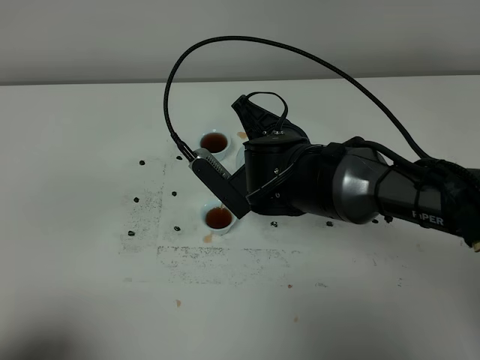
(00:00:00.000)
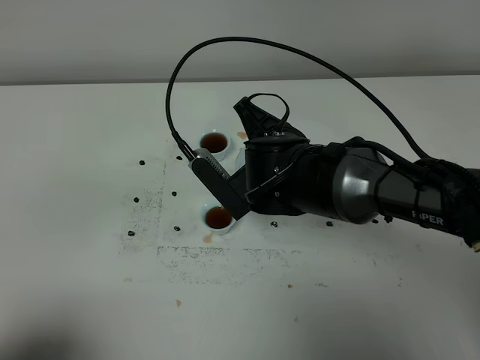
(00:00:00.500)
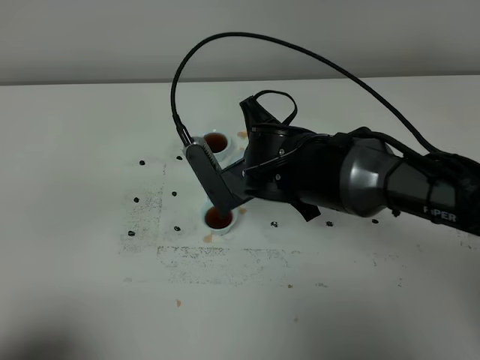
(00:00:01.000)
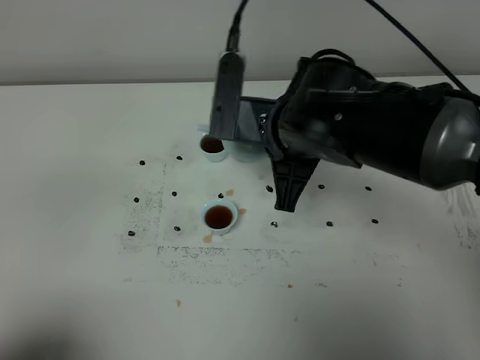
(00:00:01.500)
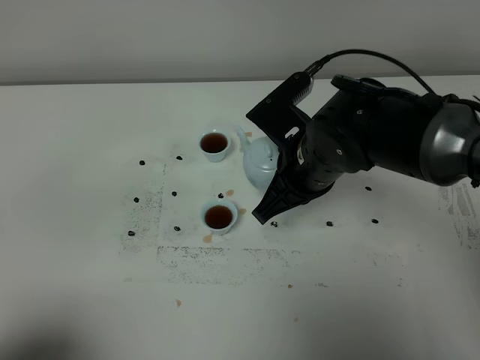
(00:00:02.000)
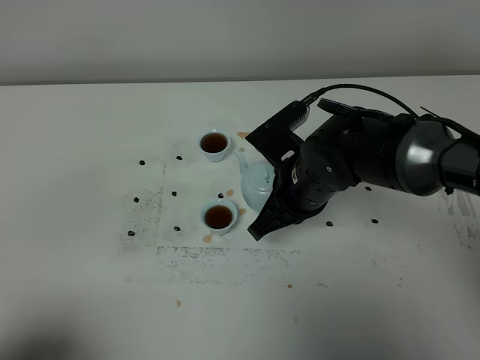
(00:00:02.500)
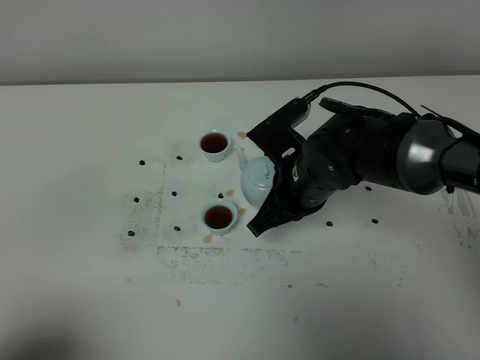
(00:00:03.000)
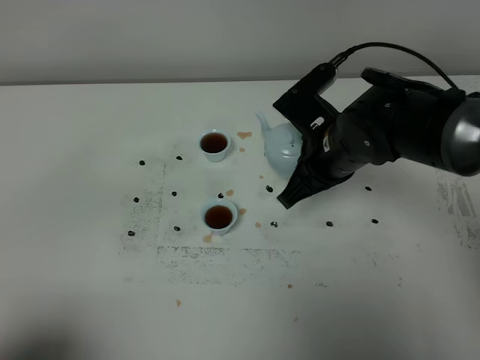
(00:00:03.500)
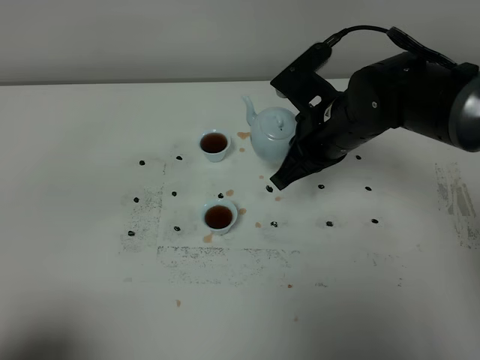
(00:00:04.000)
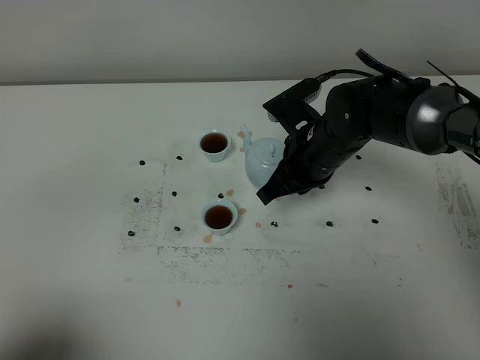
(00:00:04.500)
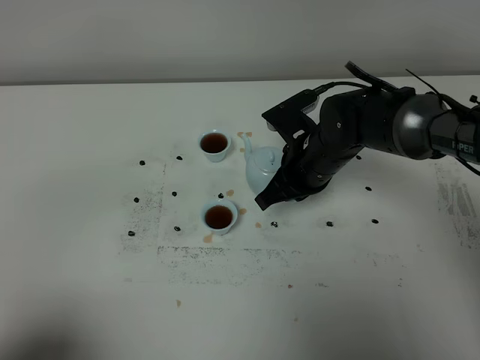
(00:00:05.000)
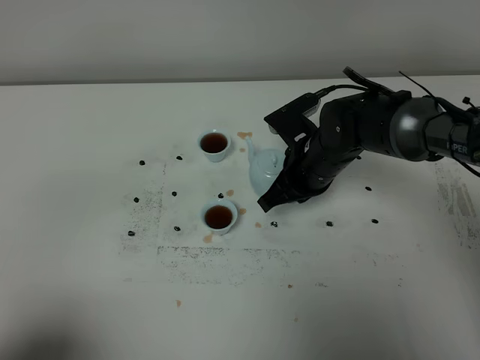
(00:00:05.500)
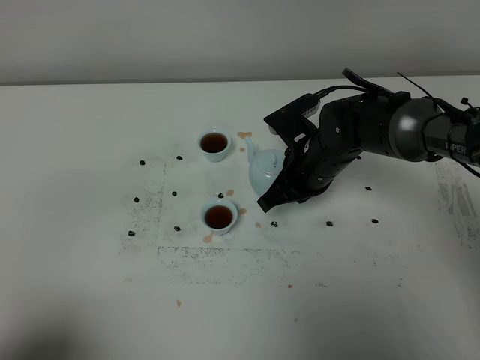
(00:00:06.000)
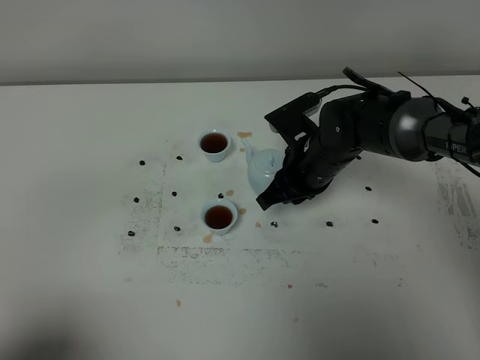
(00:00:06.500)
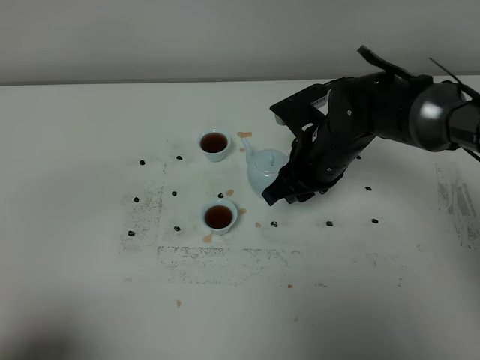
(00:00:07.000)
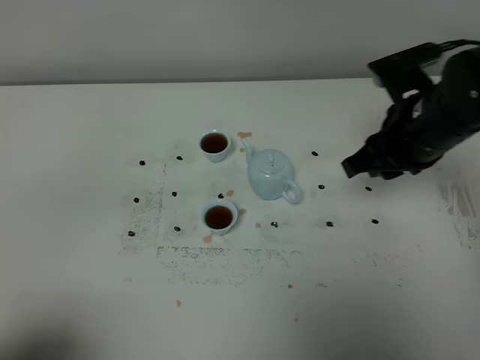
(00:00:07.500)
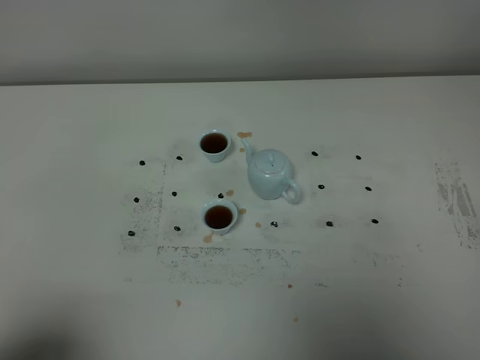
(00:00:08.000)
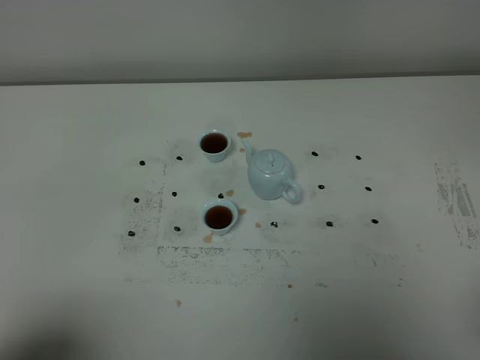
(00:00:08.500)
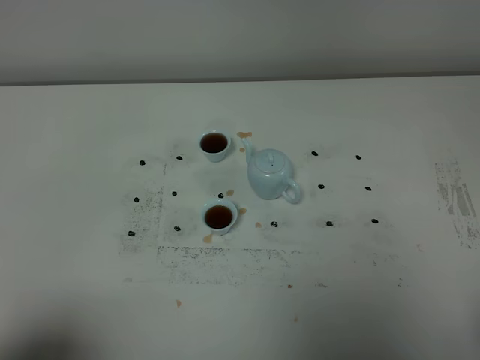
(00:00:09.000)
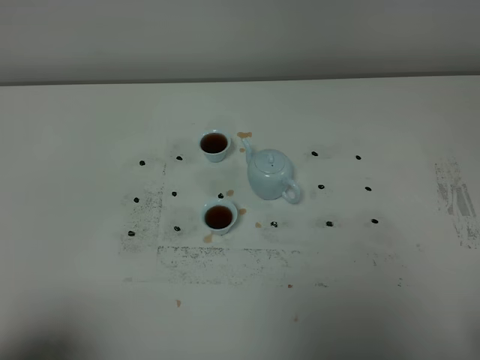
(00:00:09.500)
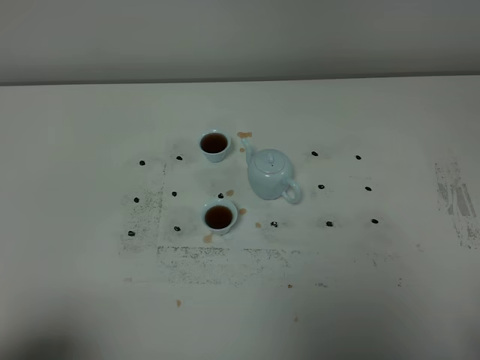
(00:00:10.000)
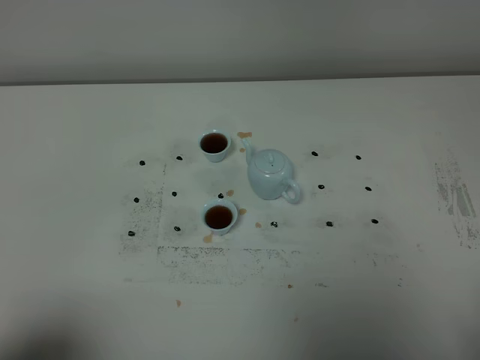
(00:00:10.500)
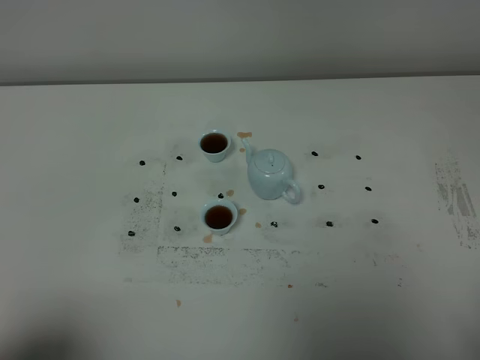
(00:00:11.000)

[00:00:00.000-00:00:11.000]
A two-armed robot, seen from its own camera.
Task of the whole recording: grasp the blue porcelain teapot and pour the tea into the two blue porcelain teacups one by one, put the blue porcelain teapot back in its original place.
00:00:02.000 to 00:00:03.500: The grippers move only a little.
00:00:03.500 to 00:00:05.500: The right gripper travels downward by roughly 5 cm.
00:00:05.500 to 00:00:07.500: The right gripper heads upward, to the right and backward, covering approximately 15 cm, and opens up.
00:00:07.500 to 00:00:09.000: The right gripper heads backward, covering about 30 cm.

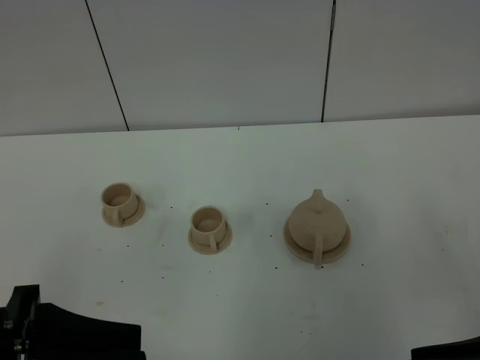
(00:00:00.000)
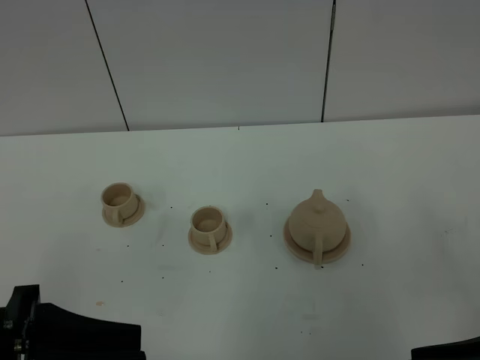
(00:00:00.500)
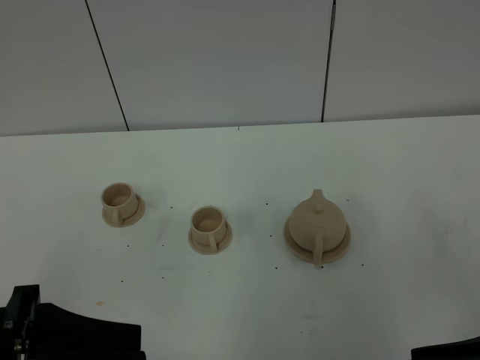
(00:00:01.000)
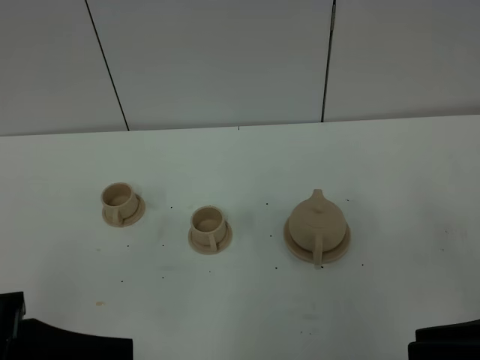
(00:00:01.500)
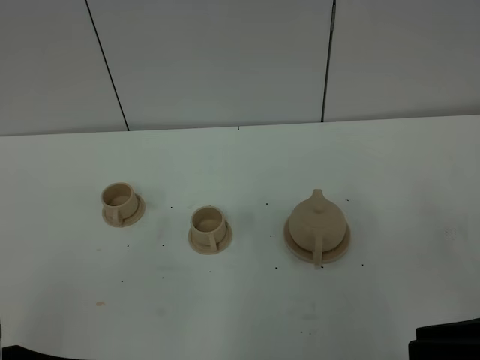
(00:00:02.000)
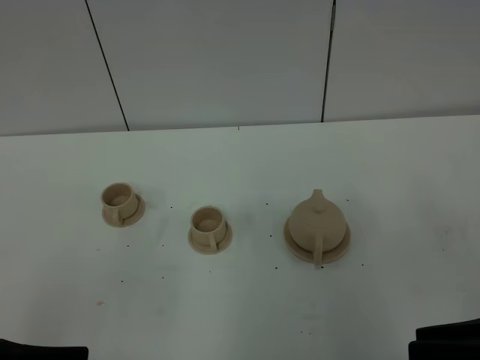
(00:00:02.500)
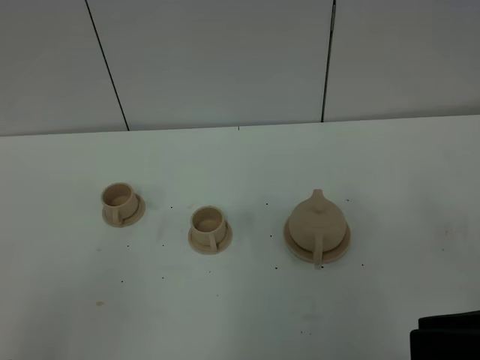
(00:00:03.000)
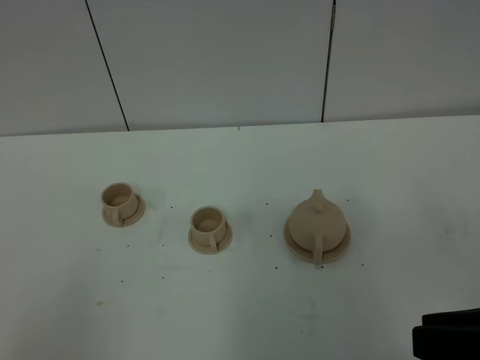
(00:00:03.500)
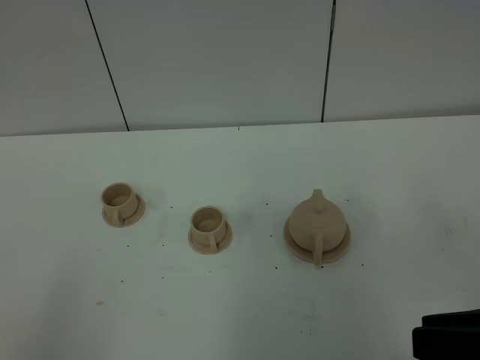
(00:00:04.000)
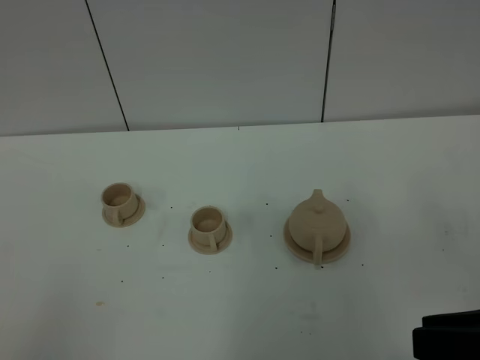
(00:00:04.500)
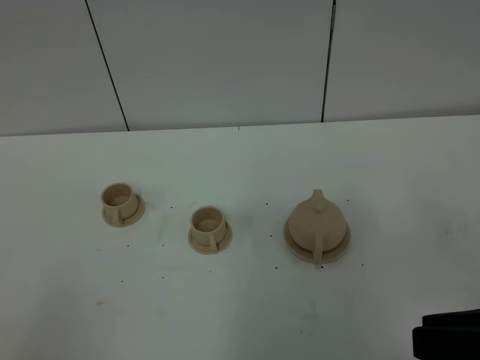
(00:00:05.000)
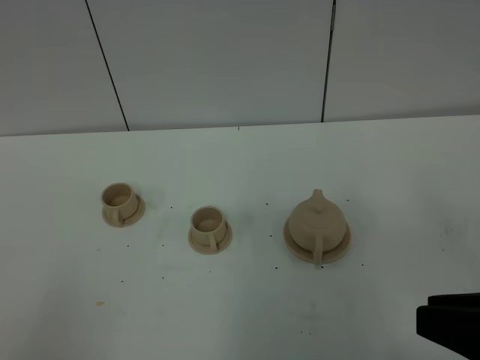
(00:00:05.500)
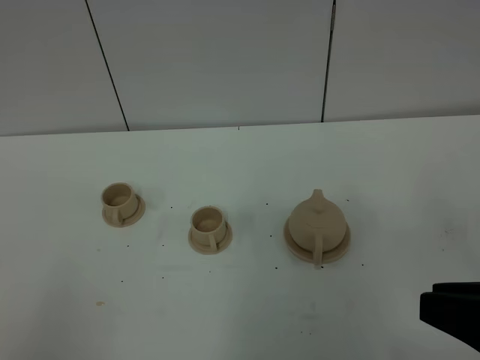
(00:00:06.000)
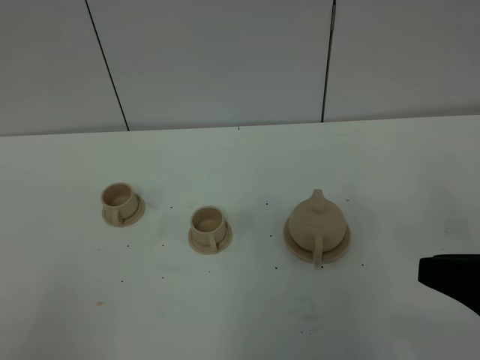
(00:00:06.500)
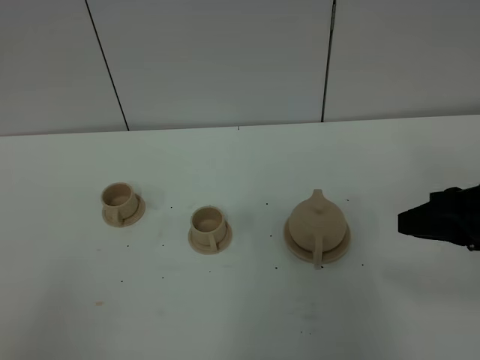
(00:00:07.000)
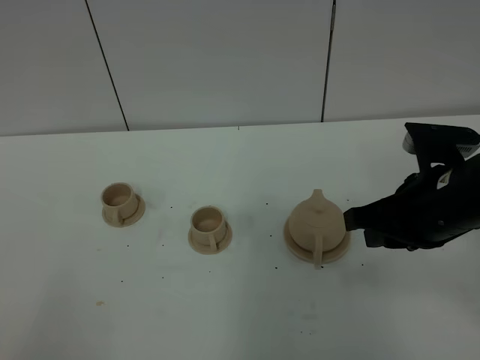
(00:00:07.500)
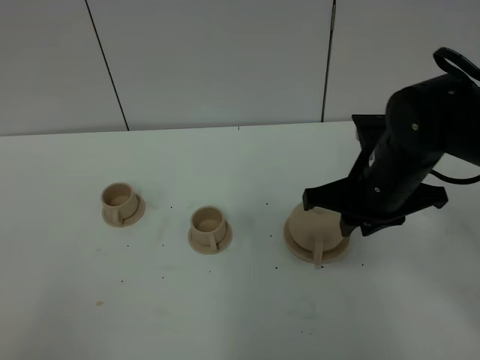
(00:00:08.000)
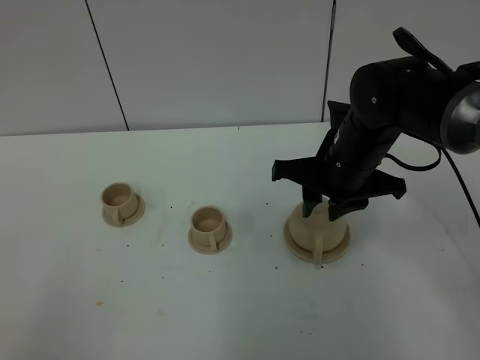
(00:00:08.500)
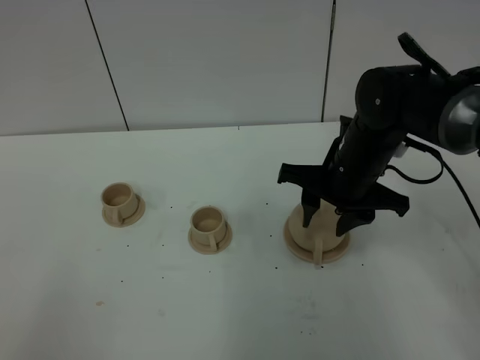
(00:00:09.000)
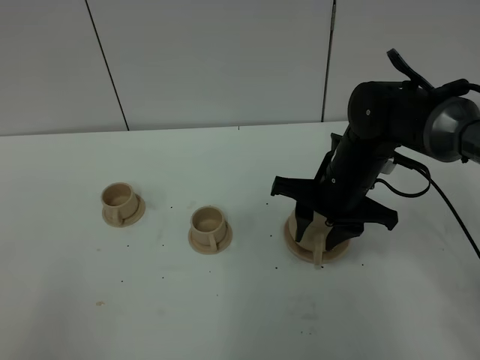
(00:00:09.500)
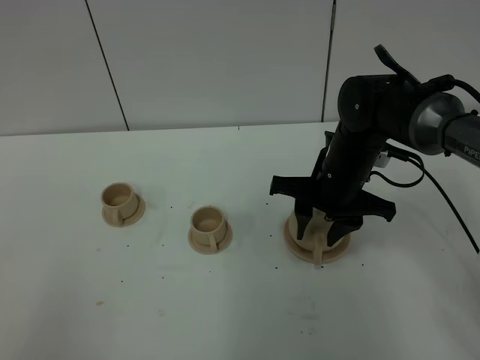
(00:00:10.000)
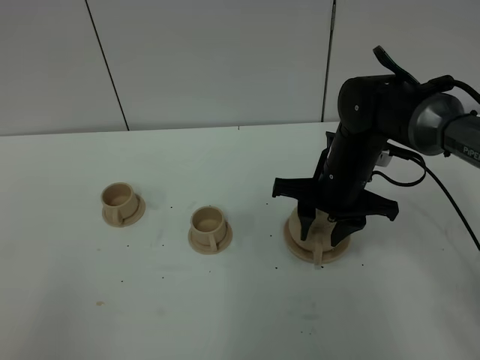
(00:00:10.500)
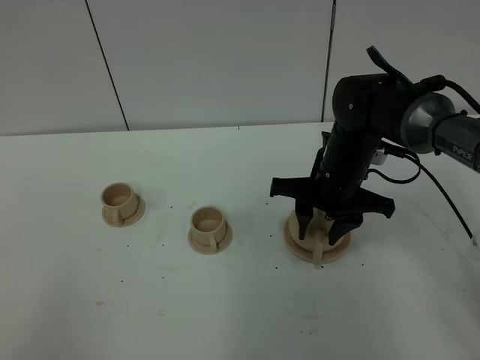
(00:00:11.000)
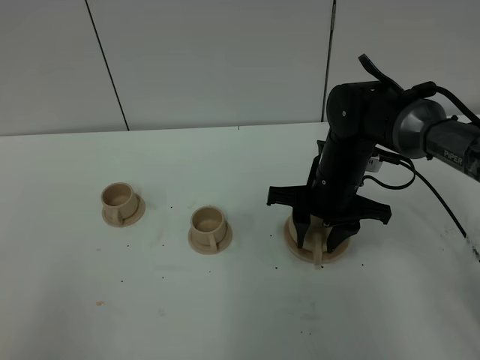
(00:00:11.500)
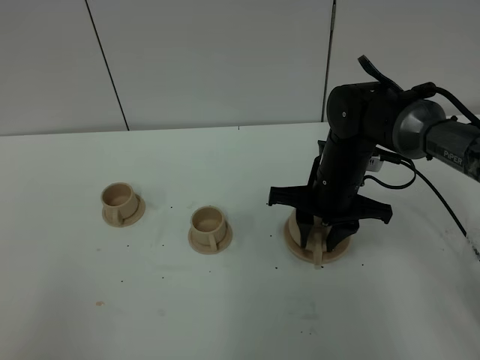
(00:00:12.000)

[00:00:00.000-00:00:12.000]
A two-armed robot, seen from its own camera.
Task of the whole recording: grasp the brown teapot and pour the tea into the two brown teacups one by one, put the brown teapot back in its original place.
00:00:00.000 to 00:00:02.000: There are only small adjustments of the grippers.
00:00:04.000 to 00:00:06.000: The grippers stay close to where they were, moving slightly.
00:00:06.000 to 00:00:08.000: The right gripper moves forward and to the left, approximately 25 cm.
00:00:08.000 to 00:00:10.000: The right gripper goes approximately 10 cm forward and downward, and opens.
00:00:10.000 to 00:00:12.000: The grippers stay close to where they were, moving slightly.

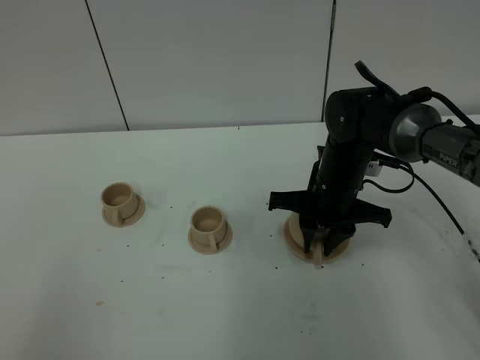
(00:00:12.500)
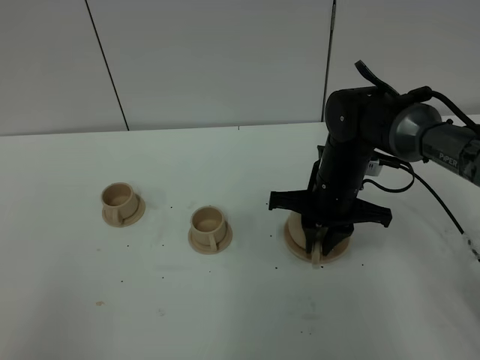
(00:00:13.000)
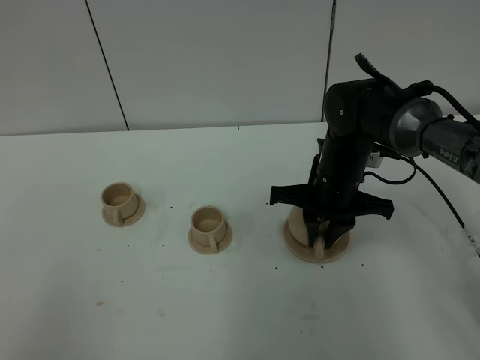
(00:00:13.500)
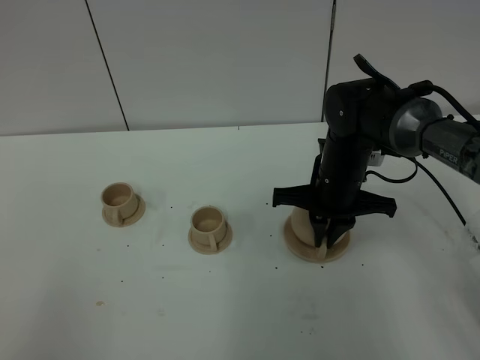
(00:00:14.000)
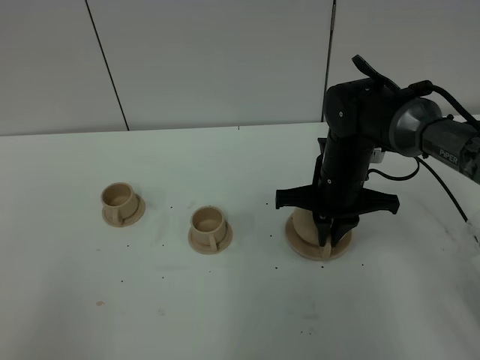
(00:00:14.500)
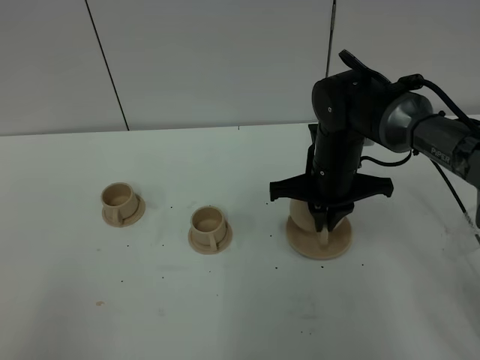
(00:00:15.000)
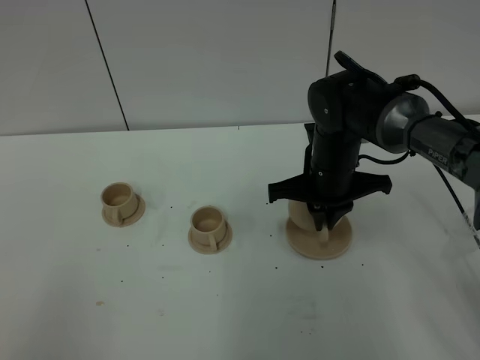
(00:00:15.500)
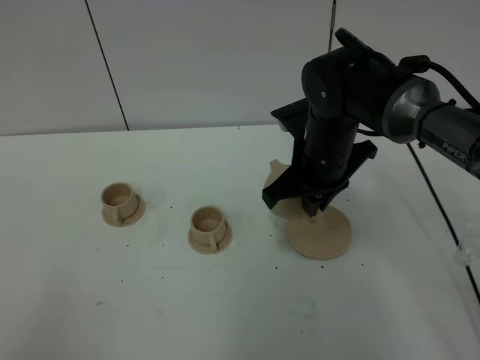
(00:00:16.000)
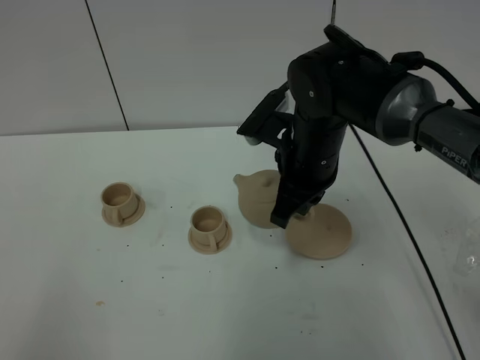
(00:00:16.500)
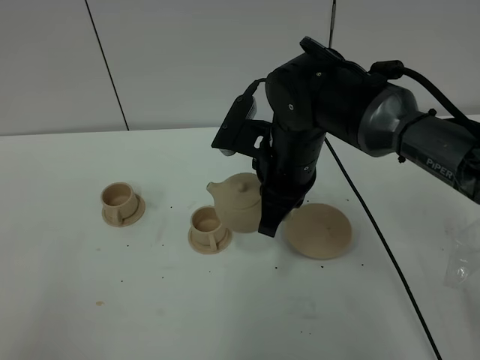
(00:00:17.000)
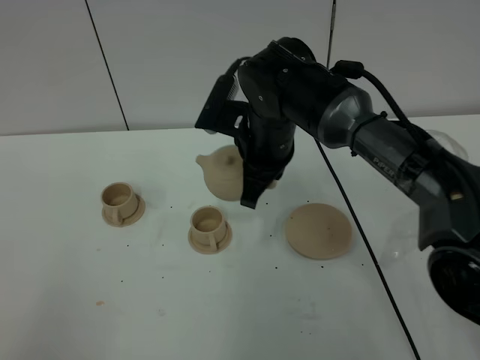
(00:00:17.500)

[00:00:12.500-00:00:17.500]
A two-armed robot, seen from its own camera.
Task of the whole recording: grasp the brown teapot and pour the tea into the two brown teacups one by one, put the brown teapot back in its original place.
Step, 00:00:12.500 to 00:00:15.000: Pick up the teapot with the right gripper.
00:00:12.500 to 00:00:15.000: The right gripper closes its fingers.
00:00:15.000 to 00:00:17.500: The right gripper goes about 10 cm to the left and upward.
